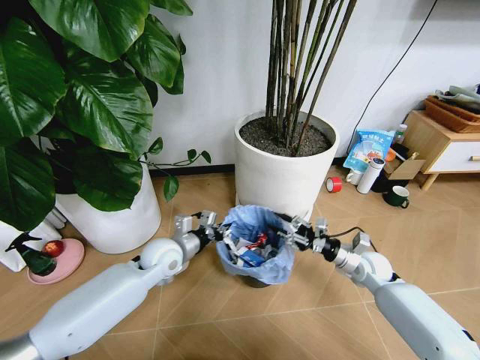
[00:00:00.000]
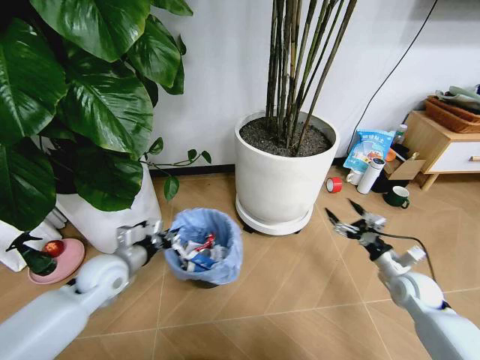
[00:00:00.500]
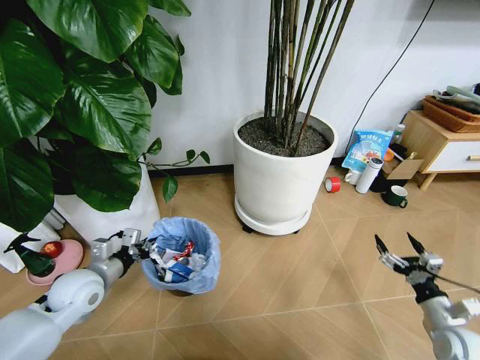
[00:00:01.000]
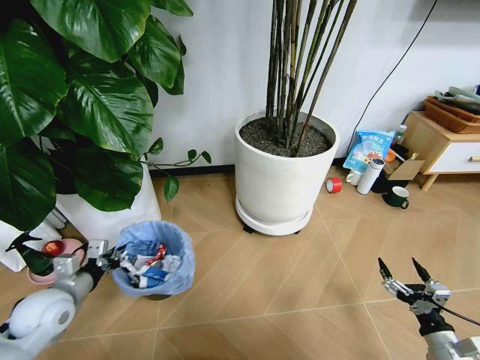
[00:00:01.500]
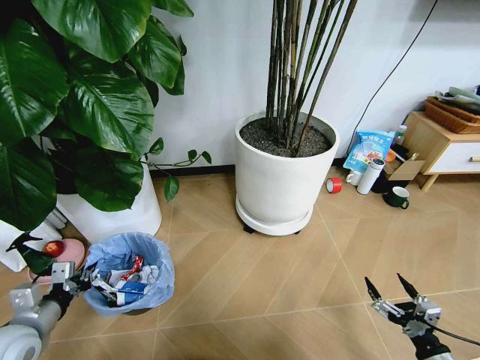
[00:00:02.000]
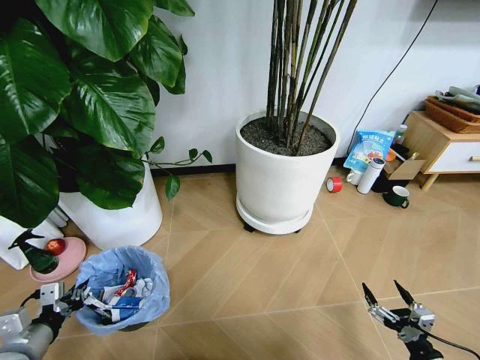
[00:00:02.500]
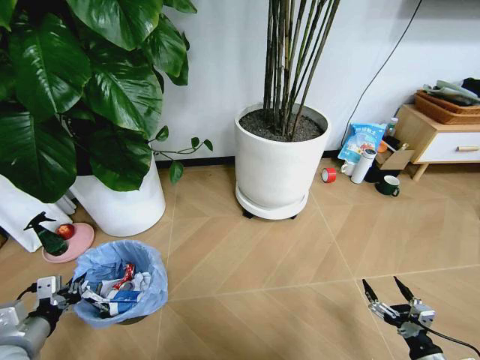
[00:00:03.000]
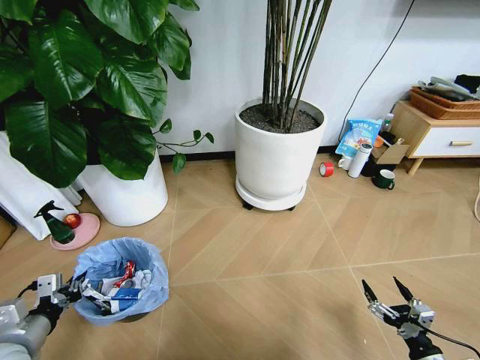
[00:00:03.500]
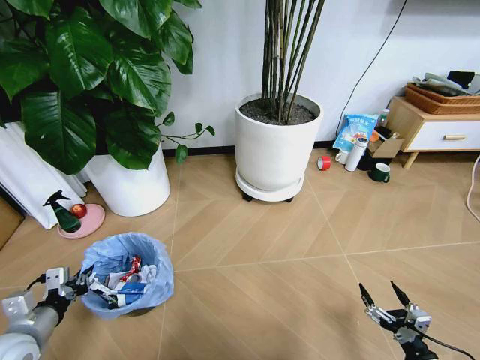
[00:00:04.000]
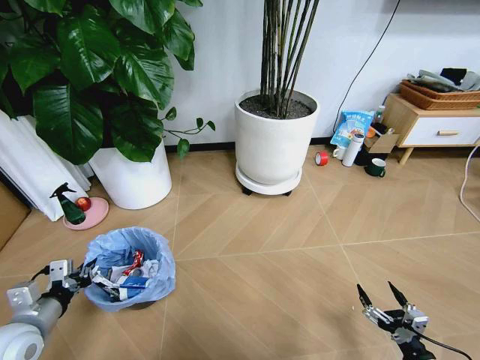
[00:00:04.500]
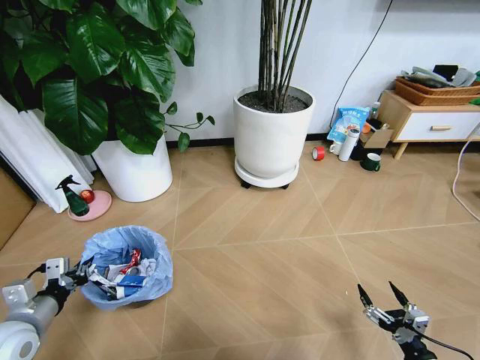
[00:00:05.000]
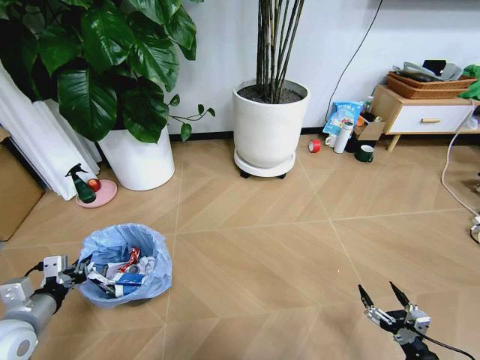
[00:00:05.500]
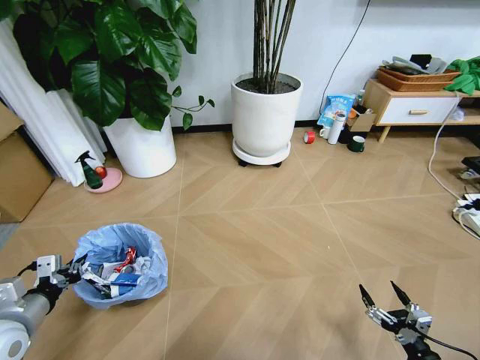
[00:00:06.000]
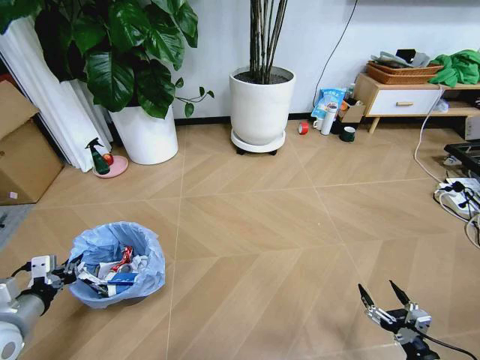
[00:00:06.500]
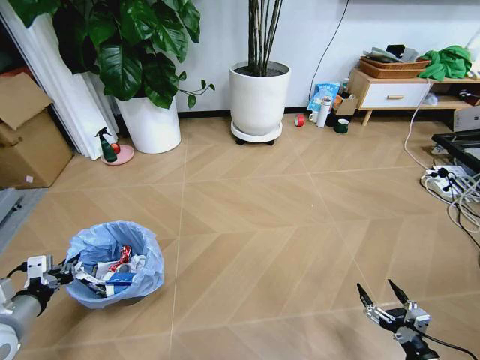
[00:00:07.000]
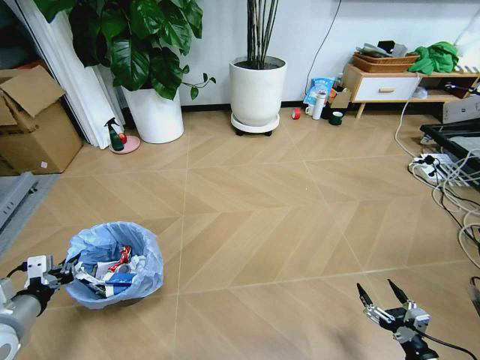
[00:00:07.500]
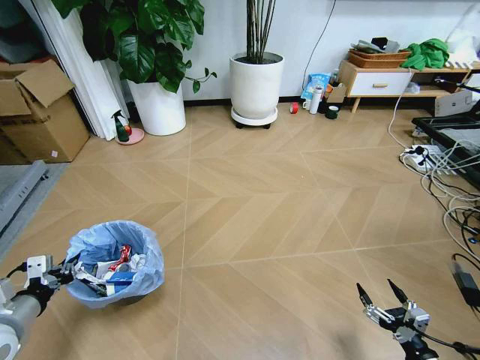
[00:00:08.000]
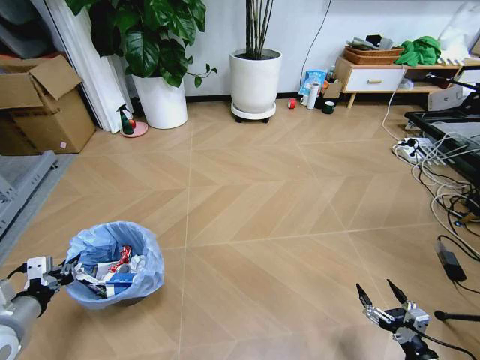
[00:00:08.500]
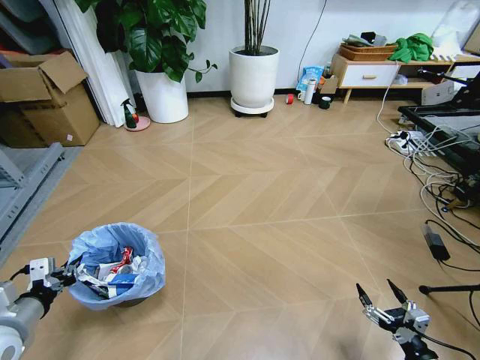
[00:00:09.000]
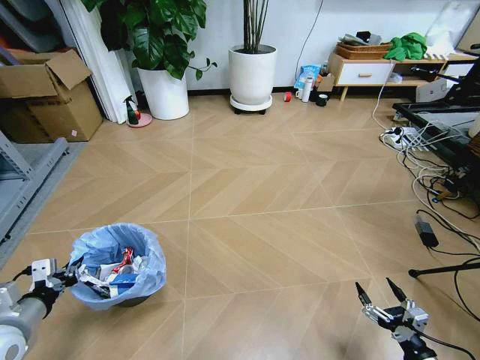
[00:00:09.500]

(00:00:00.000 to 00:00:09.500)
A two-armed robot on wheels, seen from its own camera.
Task of the whole recording: Pick up the trash bin and place the garbage on the floor into it.
00:00:00.000 - 00:00:02.000: The right gripper goes roughly 30 cm backward, and opens up. The left gripper goes roughly 30 cm to the left and backward.

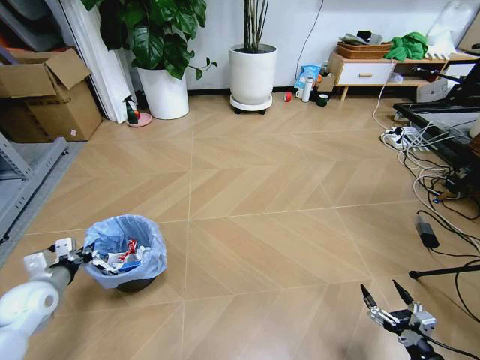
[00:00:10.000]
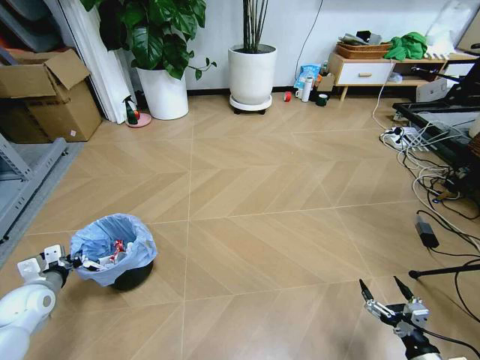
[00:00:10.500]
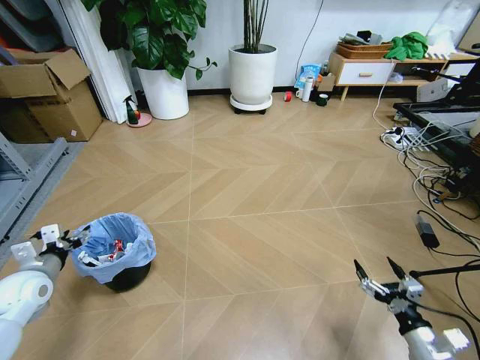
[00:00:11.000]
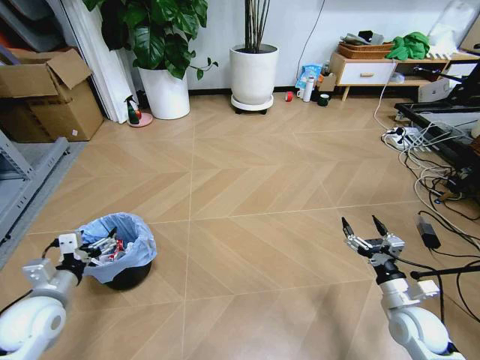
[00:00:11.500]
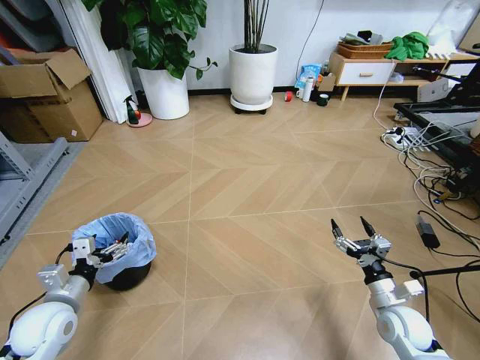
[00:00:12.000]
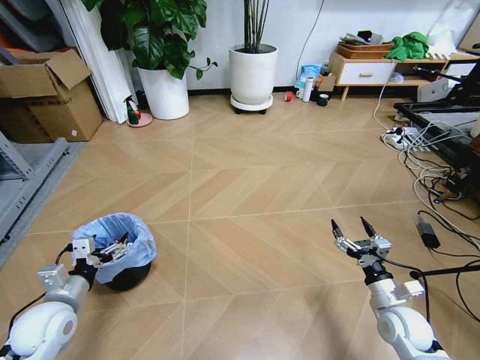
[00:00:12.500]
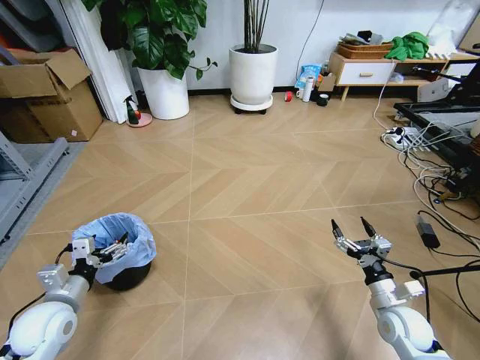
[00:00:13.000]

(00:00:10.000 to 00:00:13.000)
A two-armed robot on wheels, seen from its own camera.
Task of the whole recording: Pick up the trash bin and place the garbage on the floor into it.
00:00:10.000 - 00:00:11.500: The right gripper goes about 15 cm forward; the left gripper goes some 5 cm to the right and backward, and opens its fingers.
00:00:11.500 - 00:00:13.000: There are only small adjustments of the grippers.
